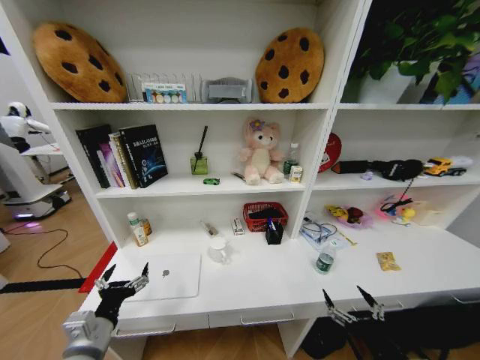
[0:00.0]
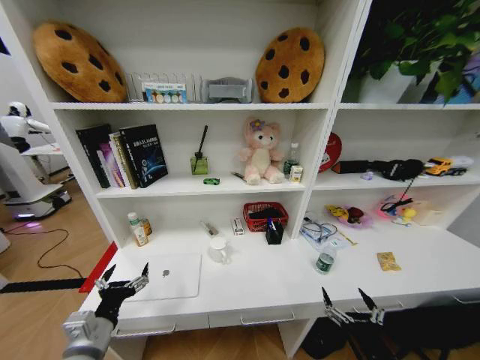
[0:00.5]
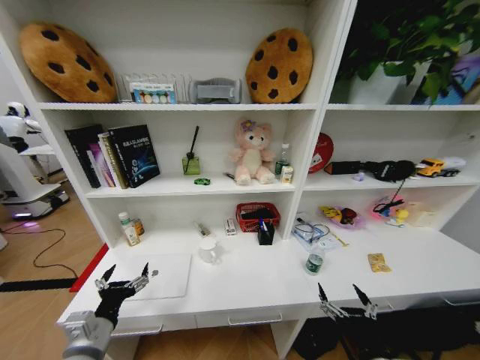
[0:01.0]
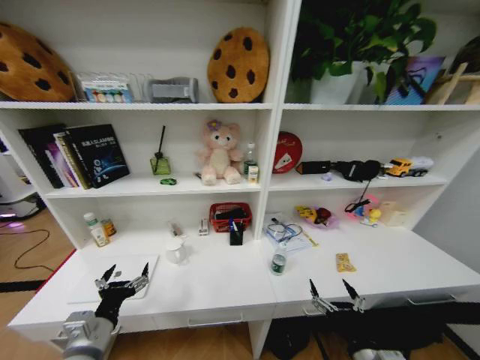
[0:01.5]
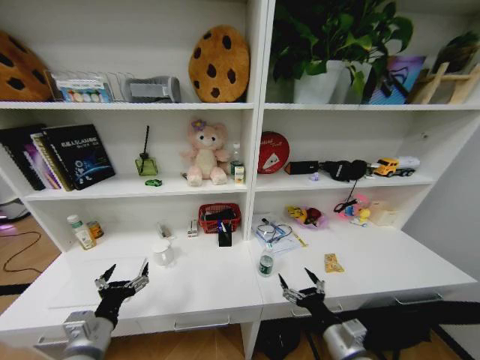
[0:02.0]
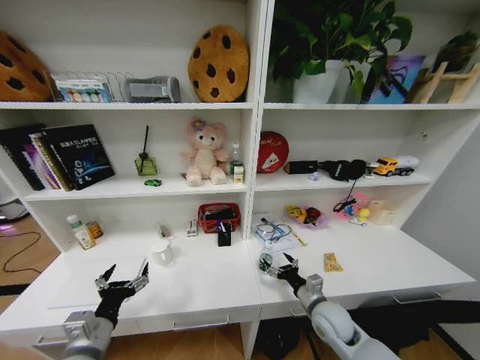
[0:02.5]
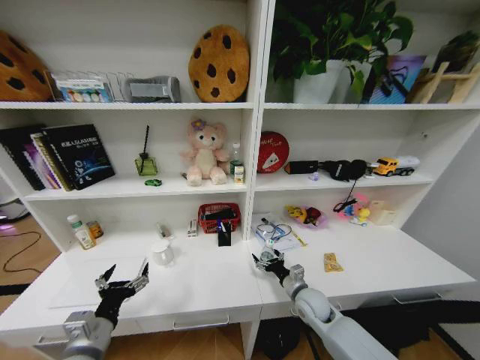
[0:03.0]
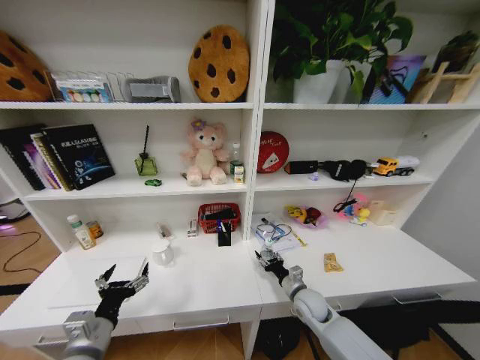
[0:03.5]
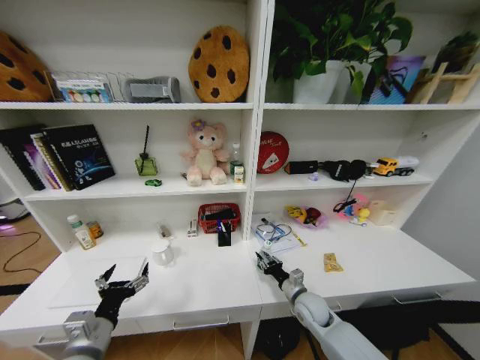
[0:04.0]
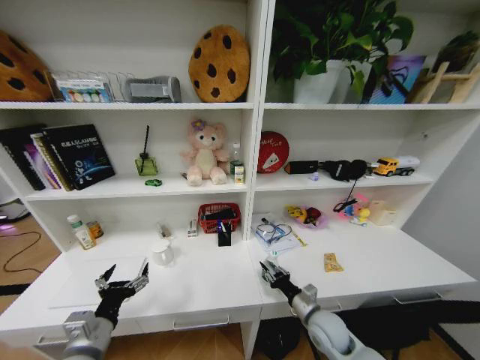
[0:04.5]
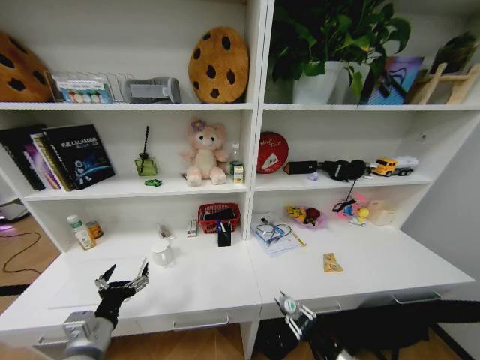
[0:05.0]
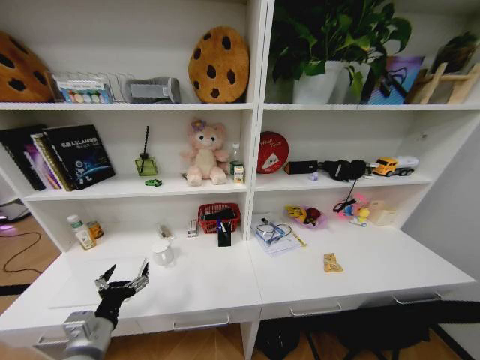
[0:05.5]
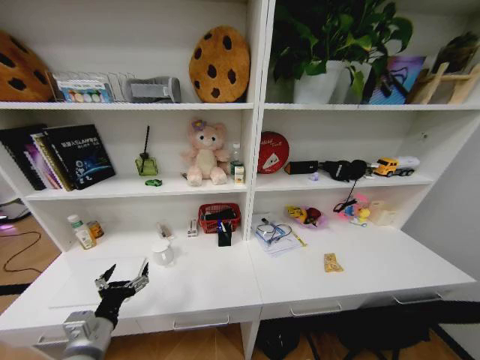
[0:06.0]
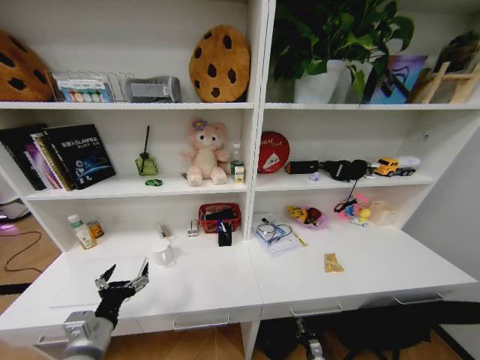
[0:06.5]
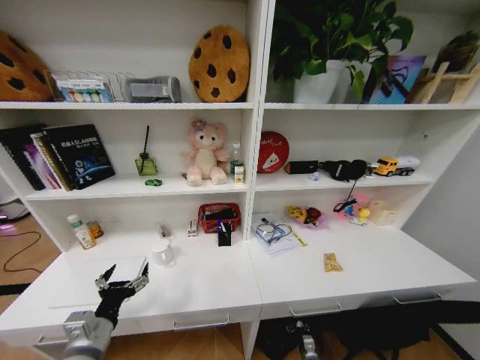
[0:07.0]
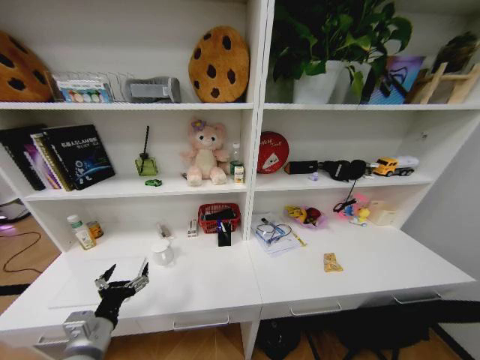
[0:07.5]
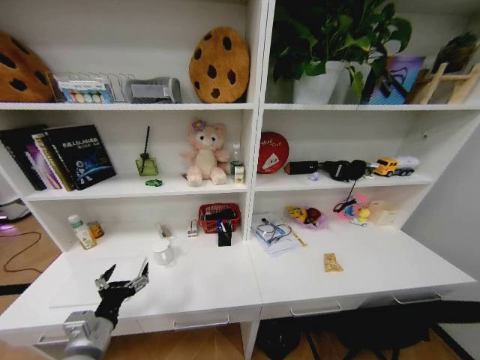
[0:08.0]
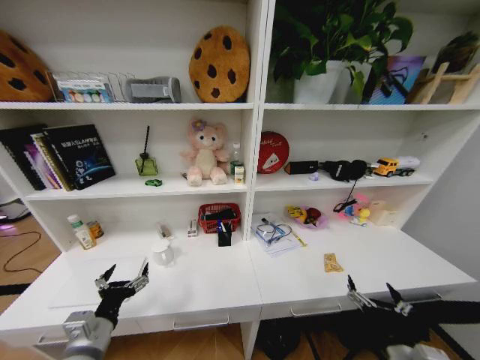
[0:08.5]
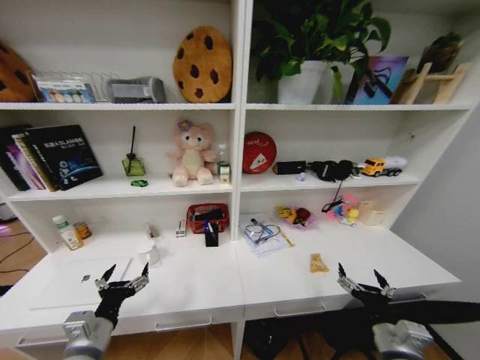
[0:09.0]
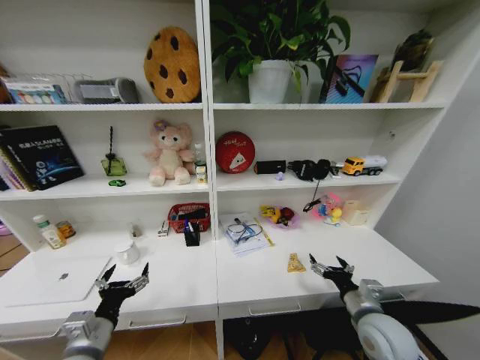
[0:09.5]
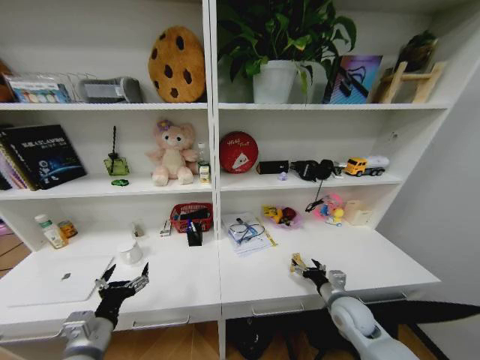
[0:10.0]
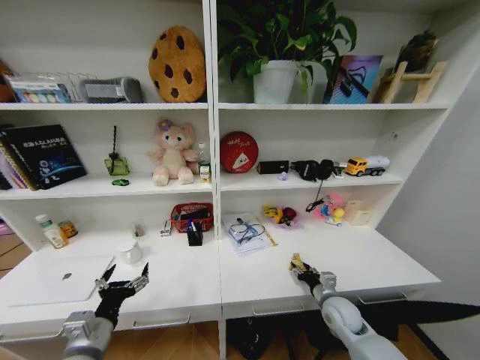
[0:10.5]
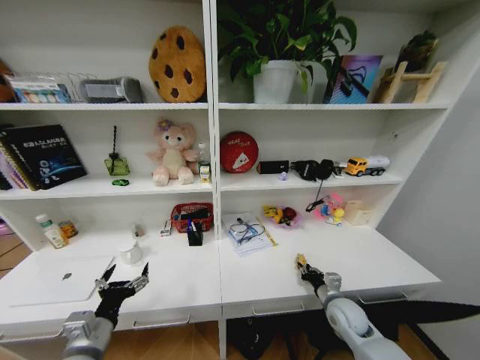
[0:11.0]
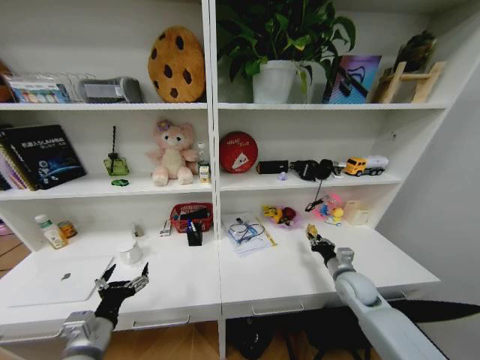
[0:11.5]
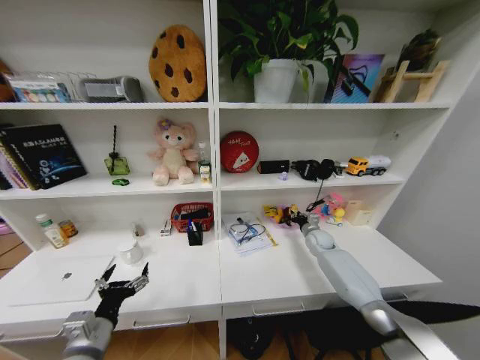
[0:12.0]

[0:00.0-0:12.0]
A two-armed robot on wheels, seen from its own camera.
Task of the whole recording: Organize the objects on the table.
0:00.0 to 0:02.0: The right gripper is displaced forward and to the left by about 10 cm.
0:02.0 to 0:04.0: The right gripper is displaced forward and downward by approximately 20 cm, and closes up.
0:04.0 to 0:06.0: The right gripper shifts about 40 cm backward, downward and to the right.
0:08.0 to 0:10.0: The right gripper moves forward and upward, roughly 35 cm.
0:10.0 to 0:12.0: The right gripper heads forward, covering roughly 25 cm, and closes up.

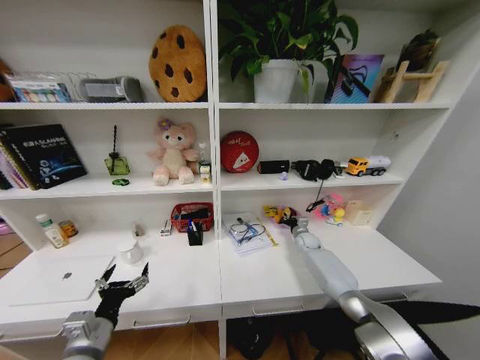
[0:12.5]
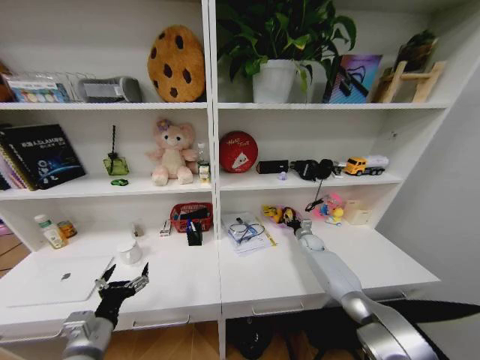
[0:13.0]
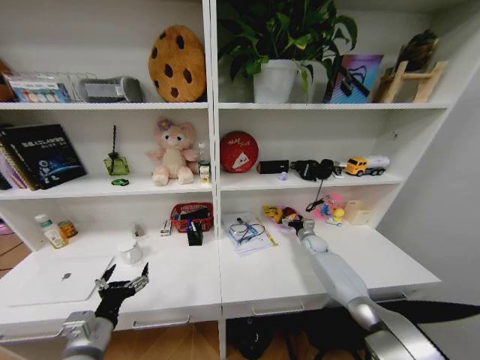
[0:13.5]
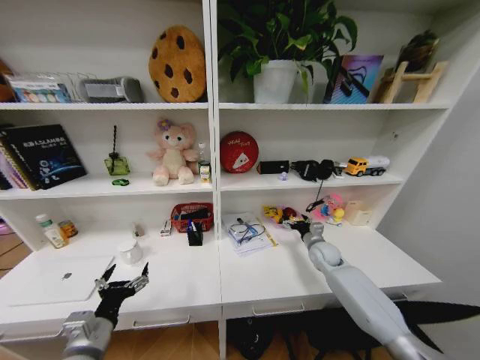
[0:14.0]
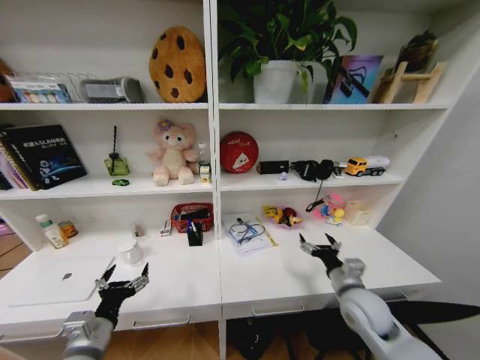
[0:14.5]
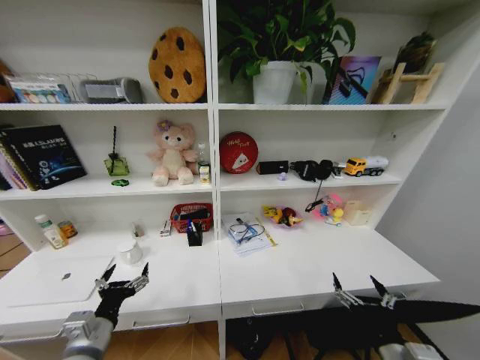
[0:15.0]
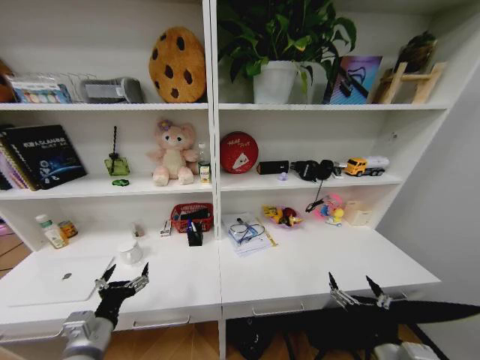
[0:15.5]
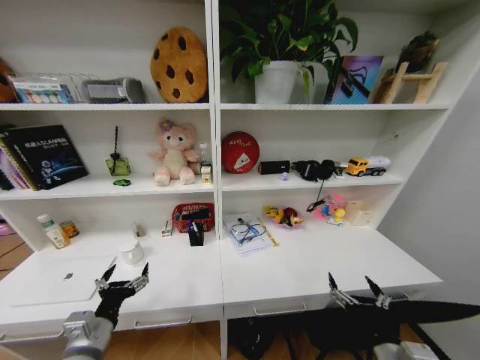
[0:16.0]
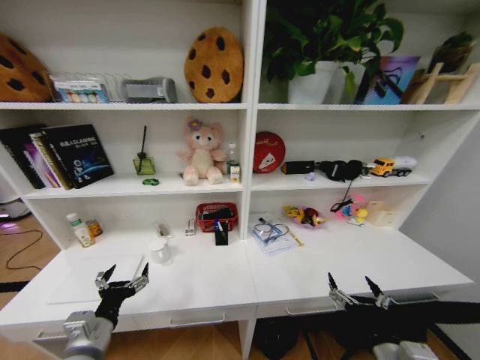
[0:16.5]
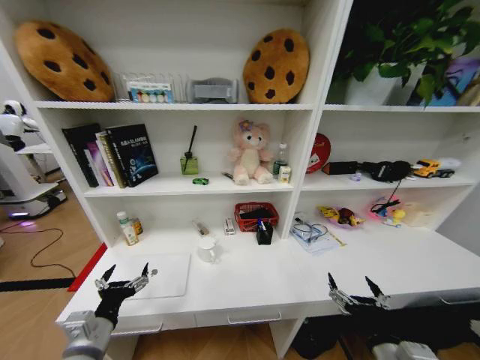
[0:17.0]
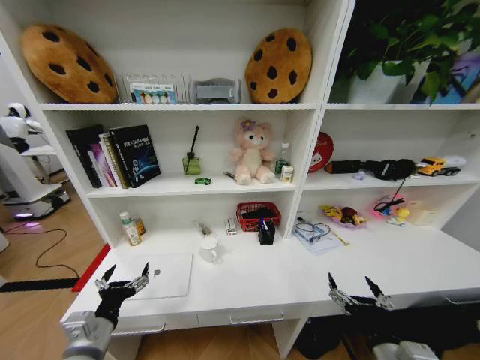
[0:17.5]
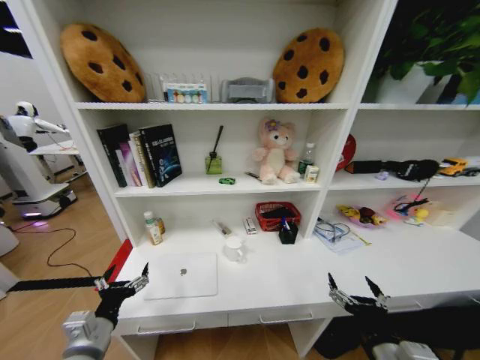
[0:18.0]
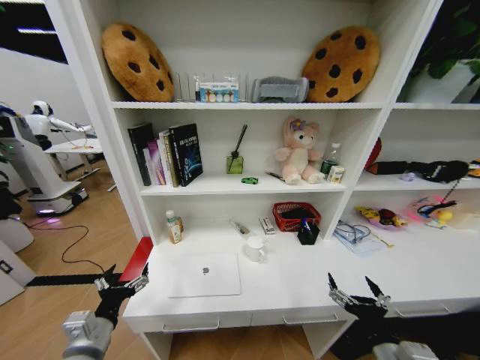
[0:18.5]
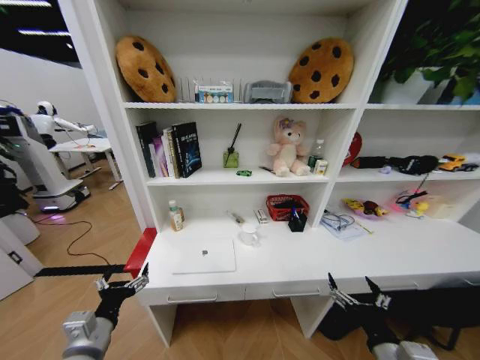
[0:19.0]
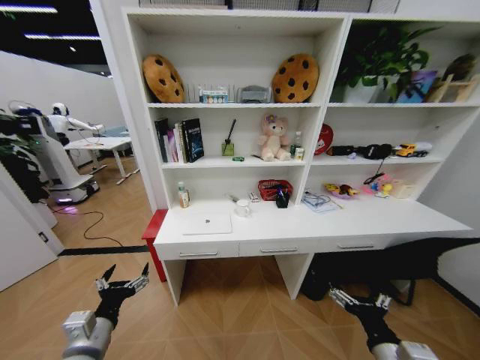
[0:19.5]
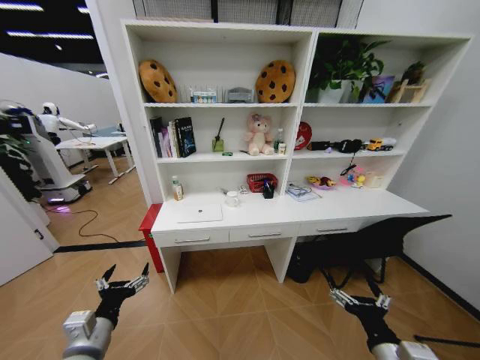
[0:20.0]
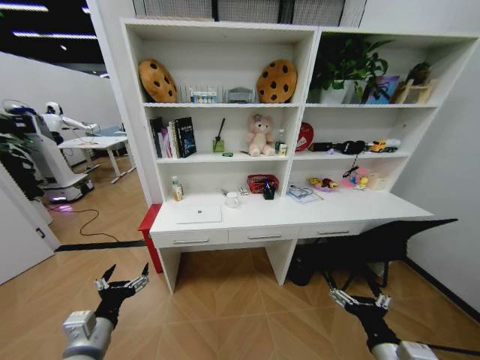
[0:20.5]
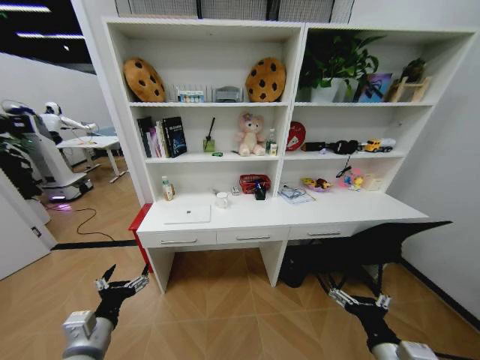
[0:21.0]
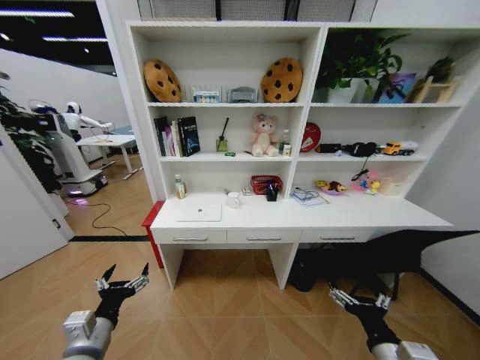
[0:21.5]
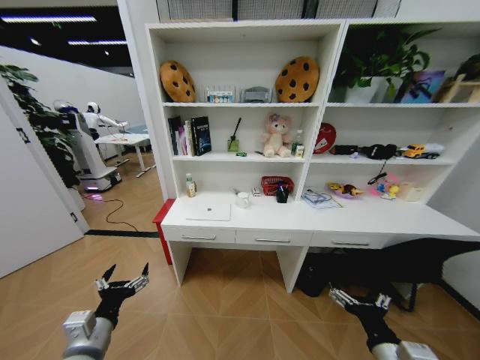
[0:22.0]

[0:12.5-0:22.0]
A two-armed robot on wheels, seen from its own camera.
Task of the whole recording: Organize the objects on the table.
0:12.5 to 0:14.5: The right gripper heads backward, covering some 30 cm, and opens.
0:14.5 to 0:16.5: The right gripper shifts some 20 cm backward.

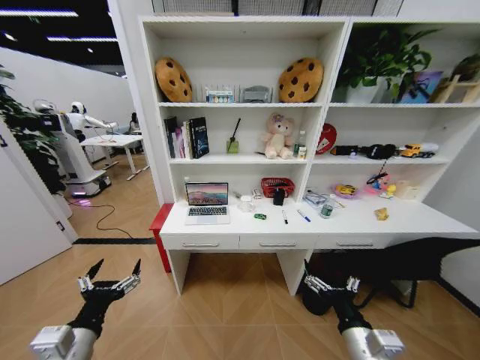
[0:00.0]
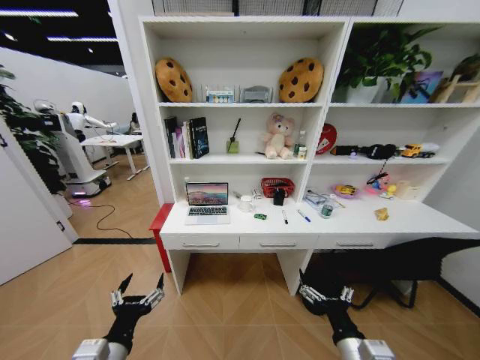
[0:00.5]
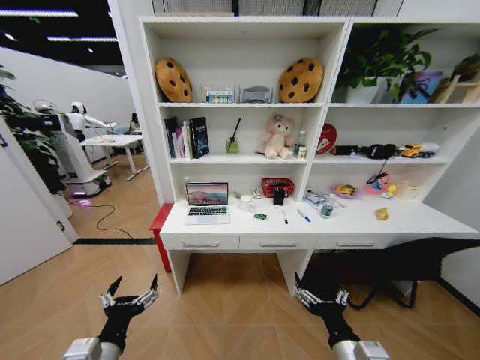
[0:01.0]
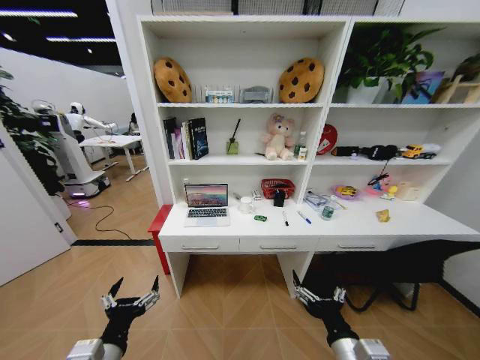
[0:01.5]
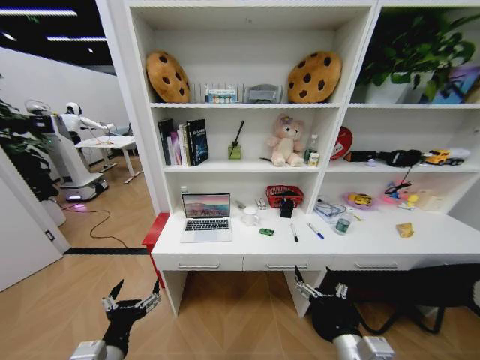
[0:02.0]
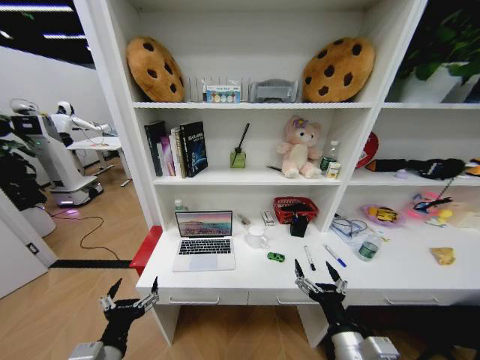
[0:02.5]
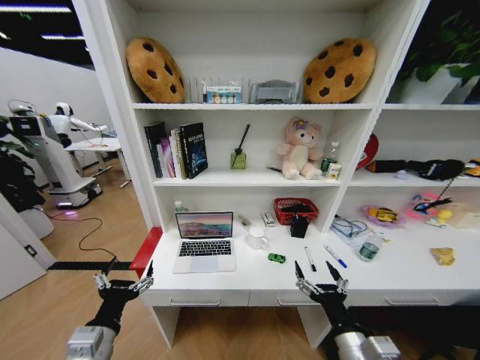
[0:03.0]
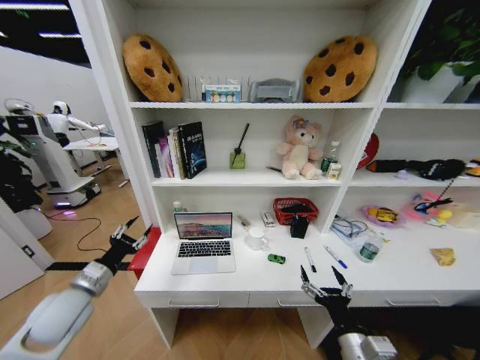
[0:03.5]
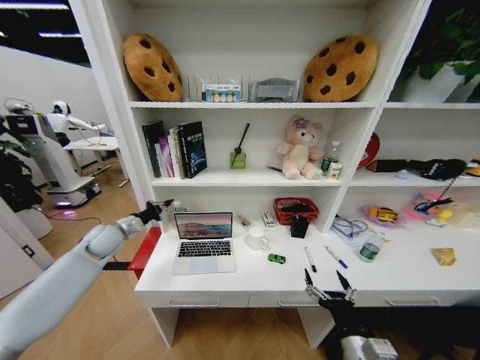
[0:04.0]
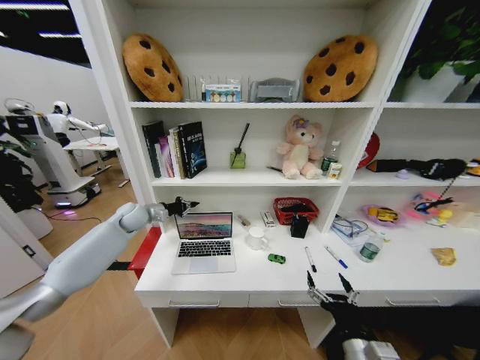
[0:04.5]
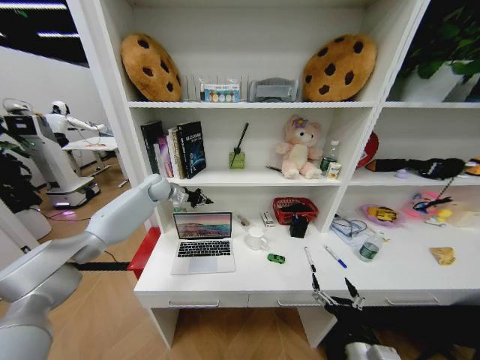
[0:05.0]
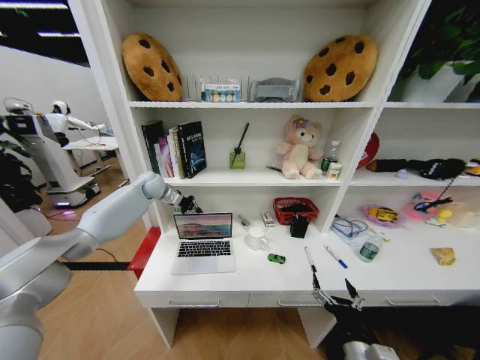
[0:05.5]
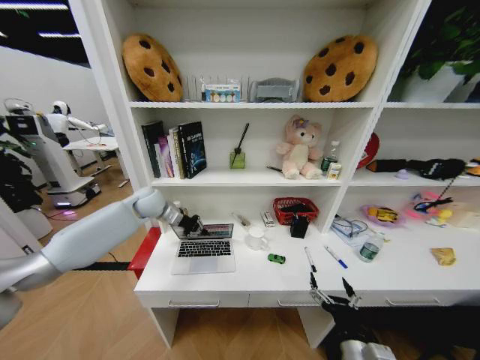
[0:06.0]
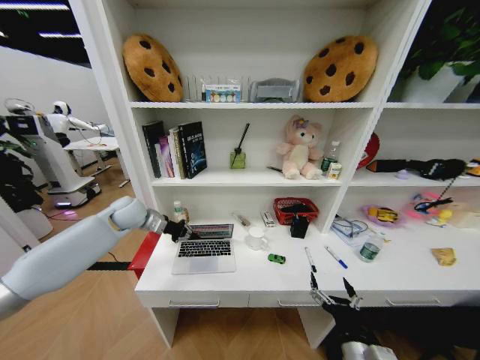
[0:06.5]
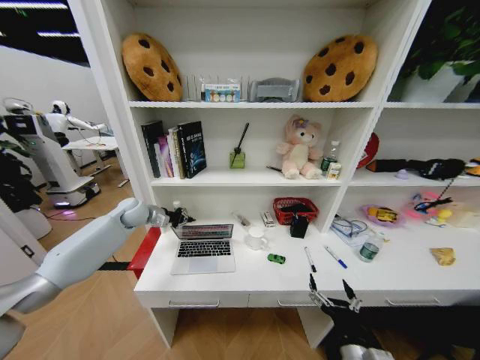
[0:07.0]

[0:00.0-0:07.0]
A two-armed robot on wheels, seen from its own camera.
Task of the whole recording: Organize the objects on the table.
0:02.0 to 0:03.5: The left gripper goes about 20 cm forward and to the left, and closes its fingers.
0:03.5 to 0:05.0: The left gripper travels forward by approximately 35 cm, and closes.
0:05.0 to 0:07.0: The left gripper shifts approximately 10 cm backward and to the left.
